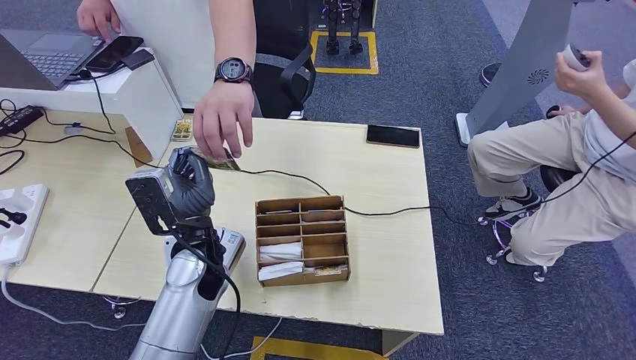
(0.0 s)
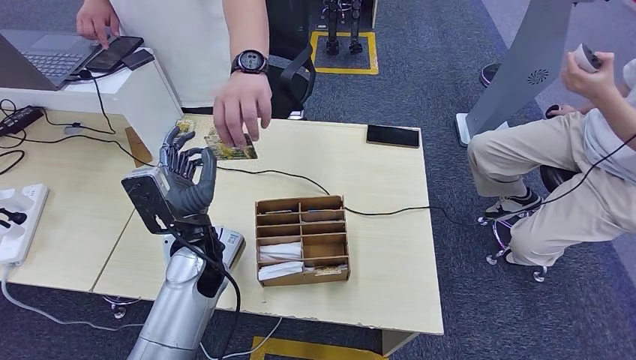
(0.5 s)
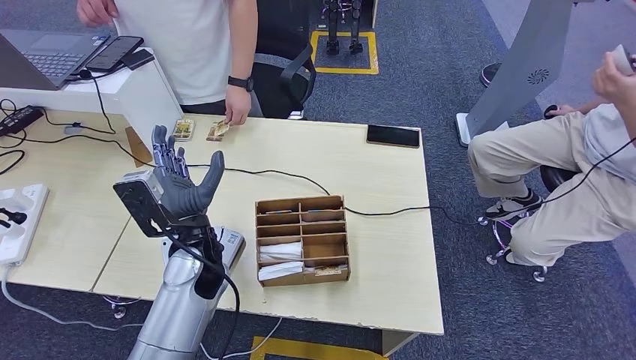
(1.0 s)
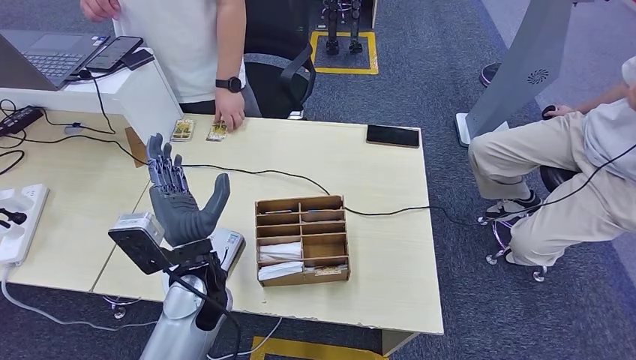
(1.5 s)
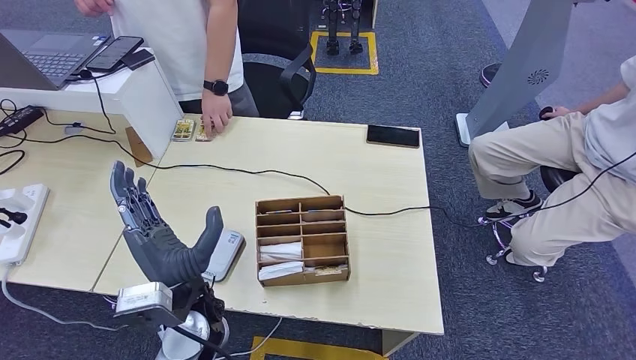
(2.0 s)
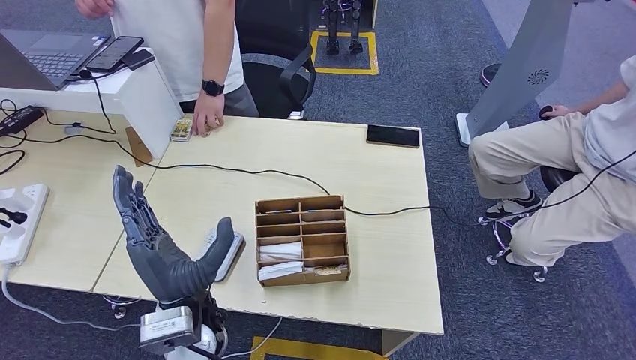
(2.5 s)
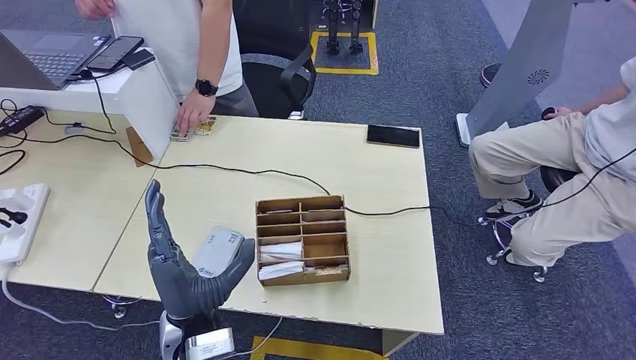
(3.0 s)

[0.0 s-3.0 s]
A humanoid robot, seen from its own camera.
Step, 0.0 to 2.5 s: Hand the room key to the person.
0.0 to 1.5 s: The hands stay close to where they were, moving slightly.
1.5 to 3.0 s: The left hand heads backward, covering roughly 10 cm.
